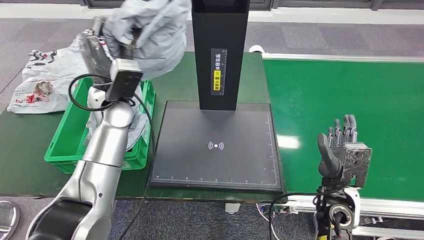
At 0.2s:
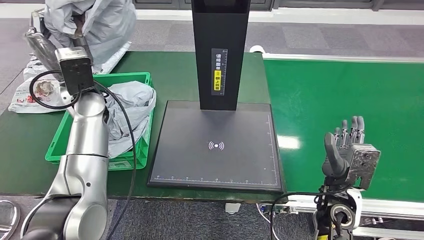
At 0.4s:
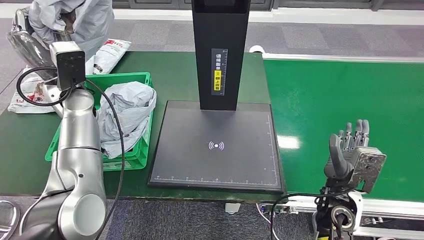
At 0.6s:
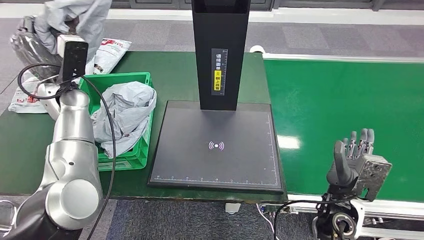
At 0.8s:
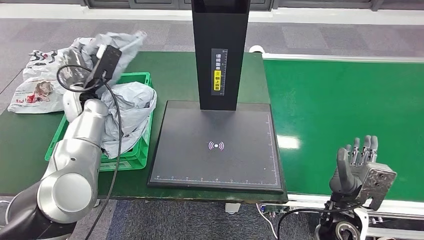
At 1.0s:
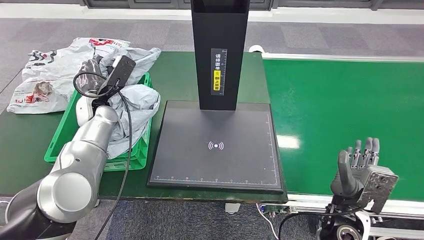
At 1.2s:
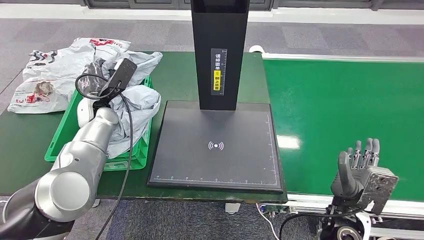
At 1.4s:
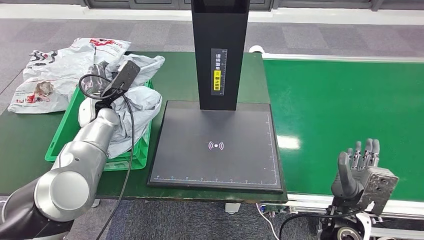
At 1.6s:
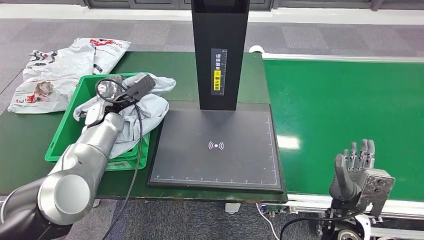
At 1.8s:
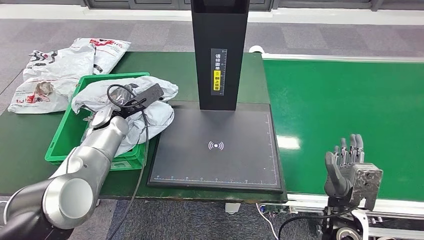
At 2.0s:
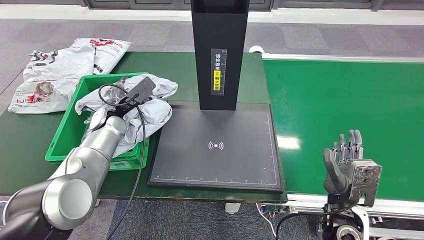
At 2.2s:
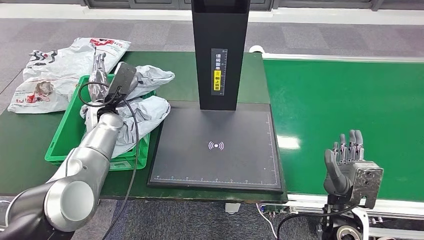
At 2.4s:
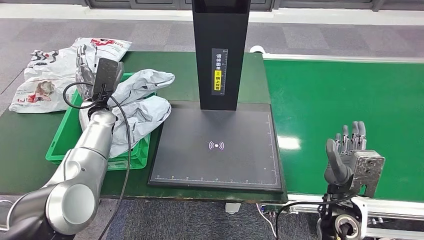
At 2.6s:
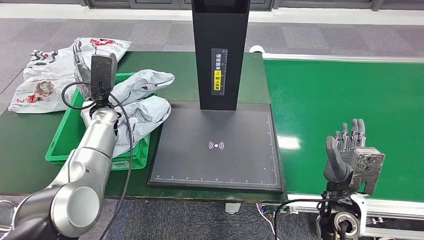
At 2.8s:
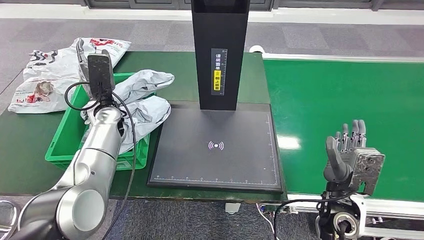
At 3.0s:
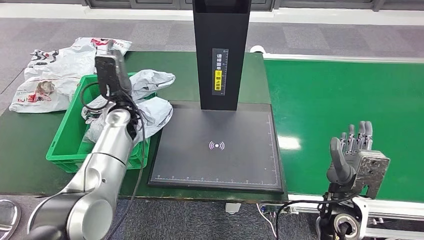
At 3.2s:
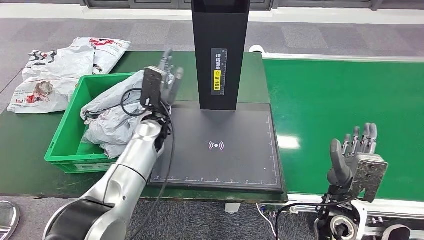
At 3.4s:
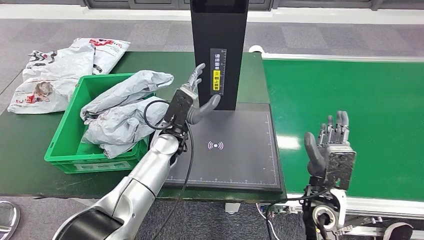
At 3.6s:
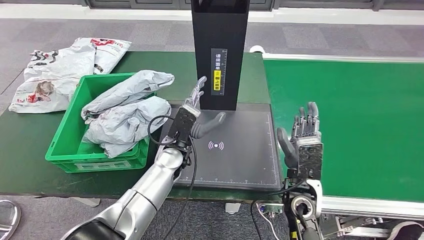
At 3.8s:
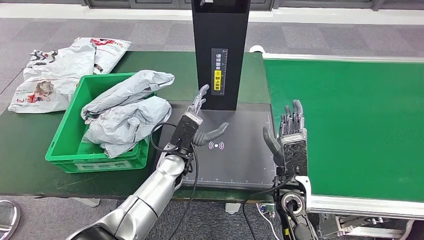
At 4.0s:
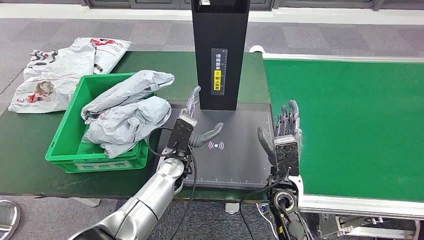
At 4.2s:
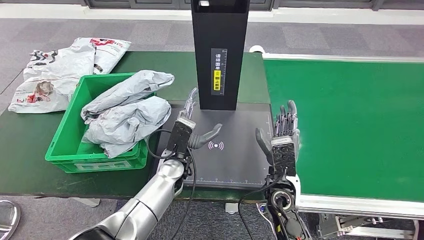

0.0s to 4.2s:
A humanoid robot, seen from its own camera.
Step, 0.0s to 4.2s: Place the parcel into the delivery box.
